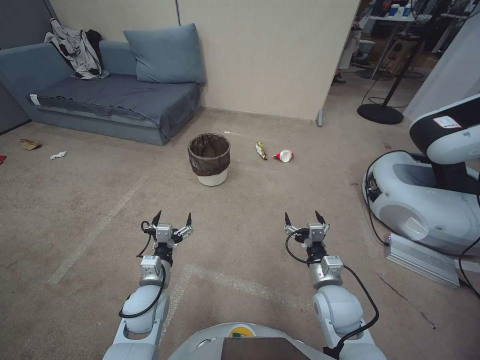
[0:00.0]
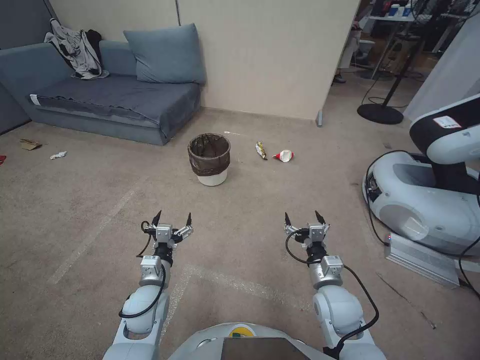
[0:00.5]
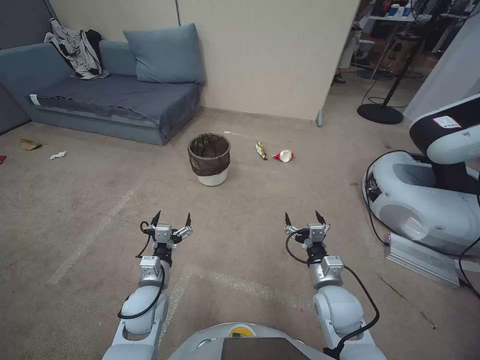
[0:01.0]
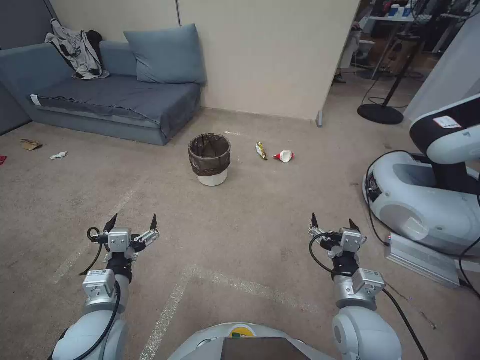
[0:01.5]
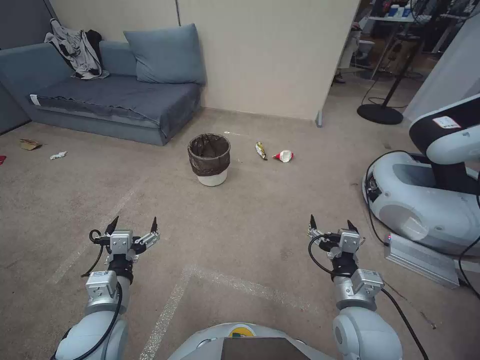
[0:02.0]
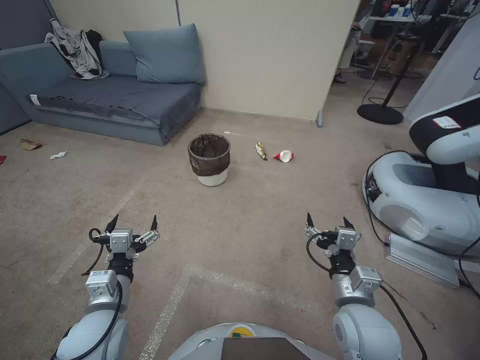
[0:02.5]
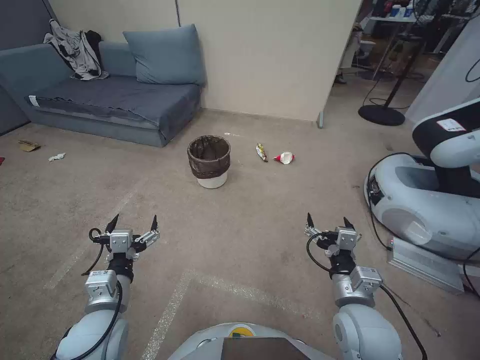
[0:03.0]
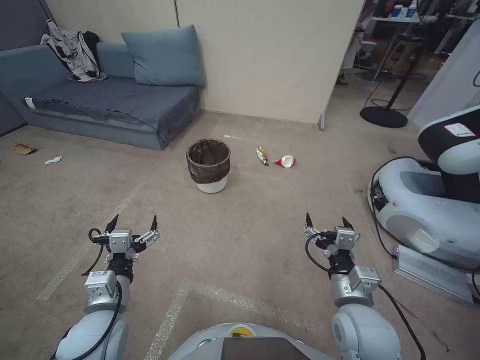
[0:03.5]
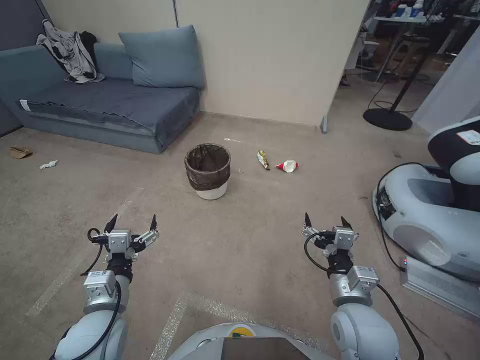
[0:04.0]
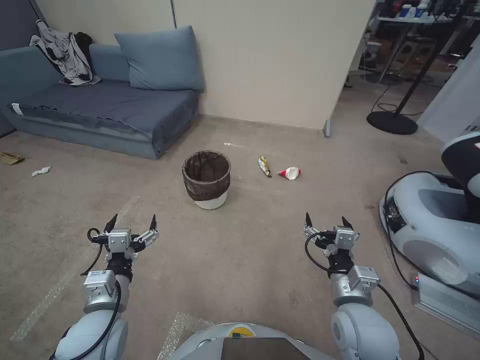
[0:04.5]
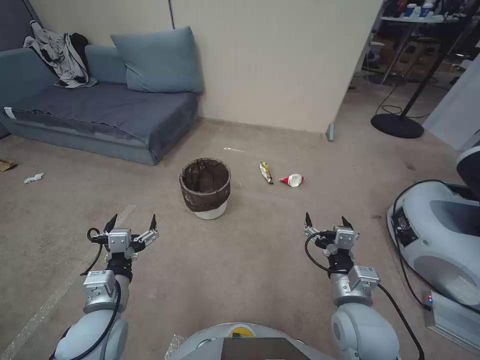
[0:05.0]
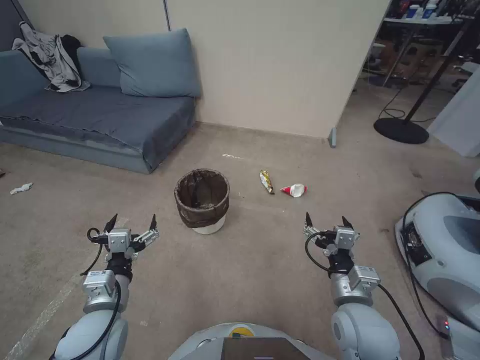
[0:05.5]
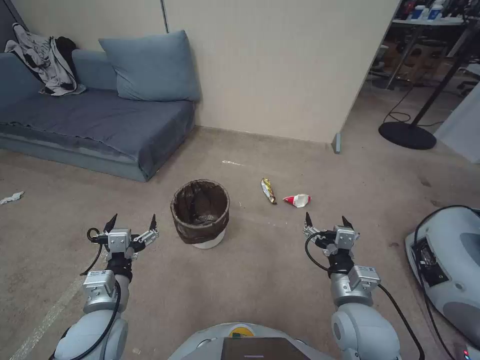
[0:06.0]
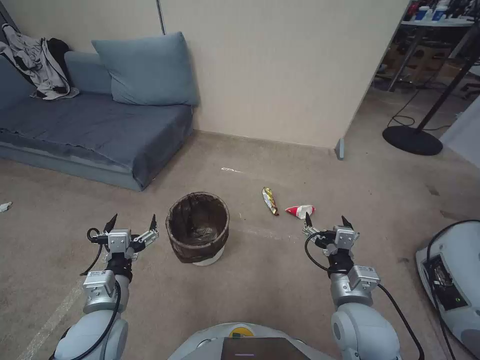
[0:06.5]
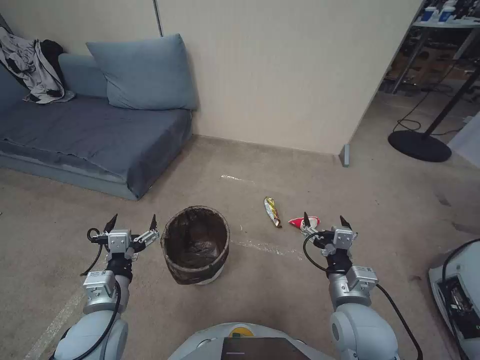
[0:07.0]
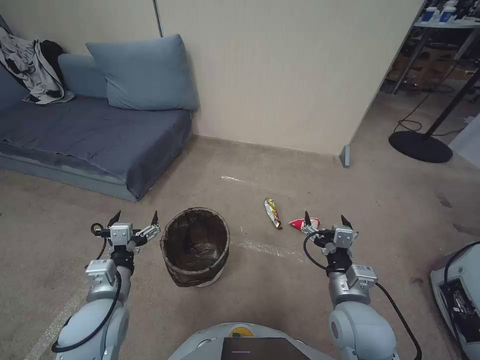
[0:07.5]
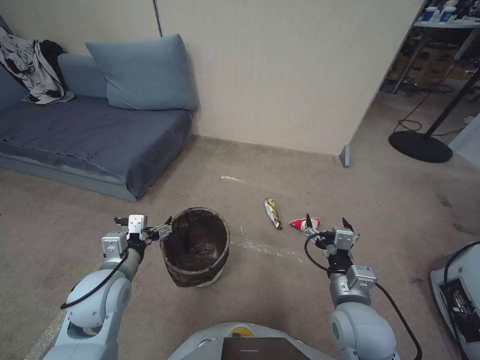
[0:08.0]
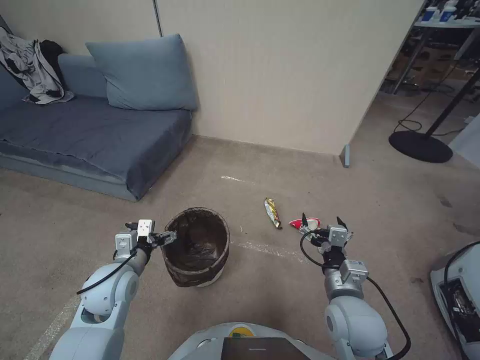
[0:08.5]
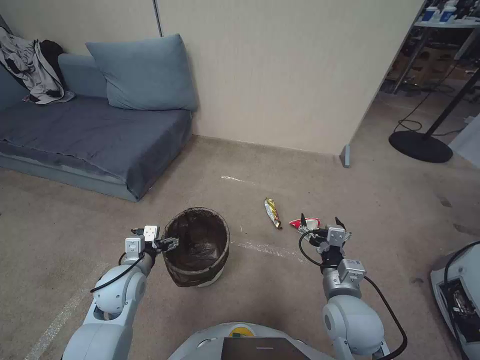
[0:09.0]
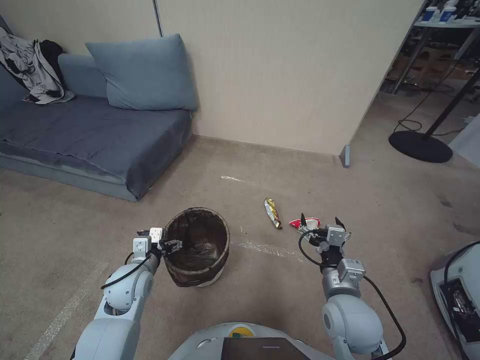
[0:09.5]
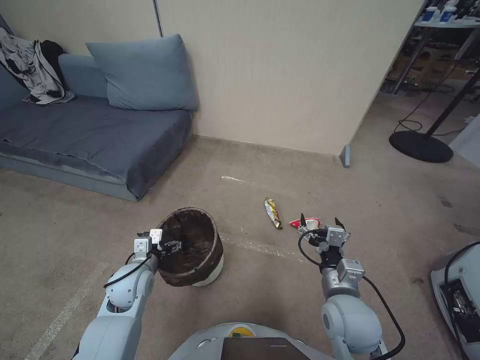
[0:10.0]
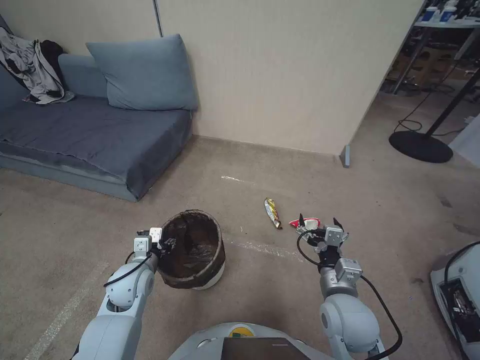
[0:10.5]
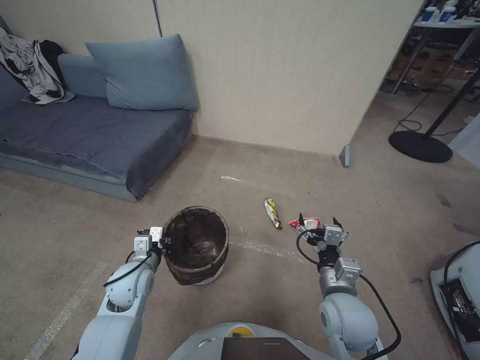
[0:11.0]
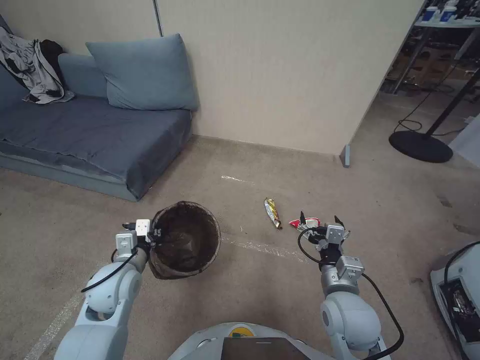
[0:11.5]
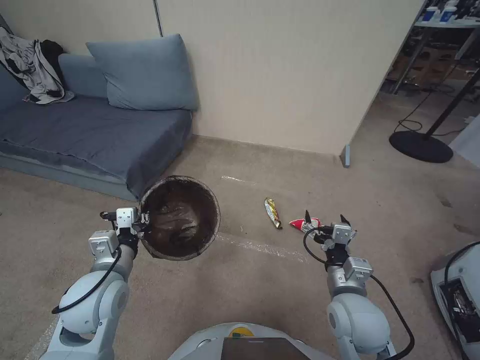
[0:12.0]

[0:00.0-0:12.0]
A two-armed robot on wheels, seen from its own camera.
Task of the whole recording: Pick up the trash bin, then pick up the garbage from the floor and place it into the trash bin.
0:02.0 to 0:04.0: Both grippers stay put.
0:06.0 to 0:08.0: The left gripper moves forward, about 5 cm.
0:08.0 to 0:10.0: The left gripper shifts some 10 cm downward and forward.
0:10.0 to 0:12.0: The left gripper is displaced upward and backward by some 10 cm, and closes.

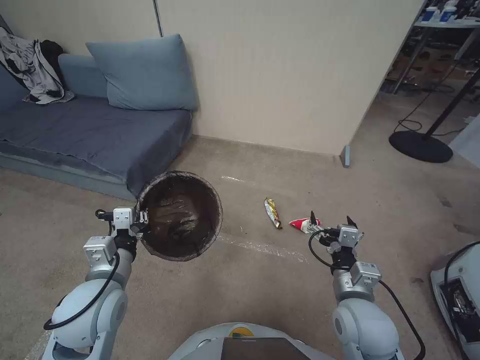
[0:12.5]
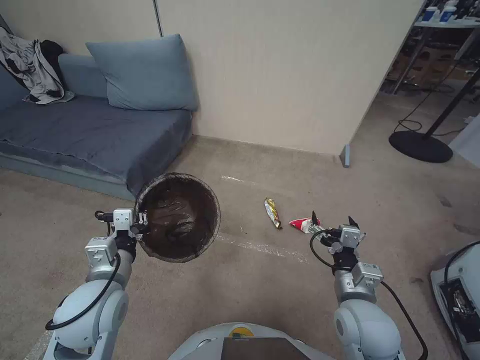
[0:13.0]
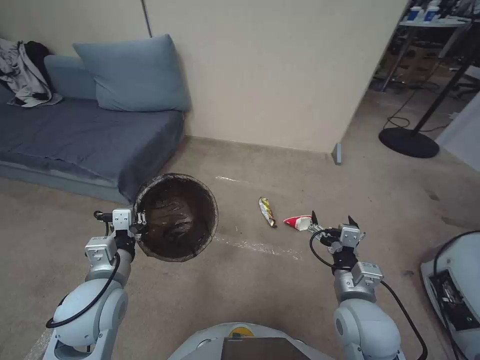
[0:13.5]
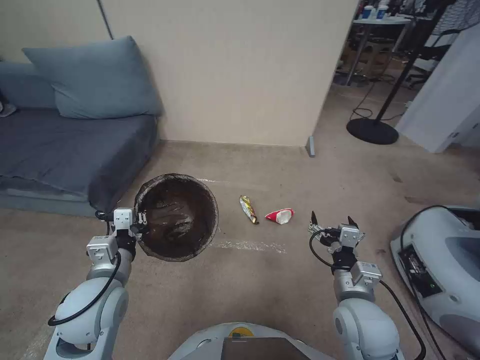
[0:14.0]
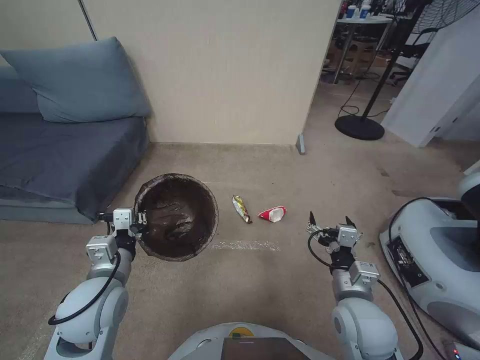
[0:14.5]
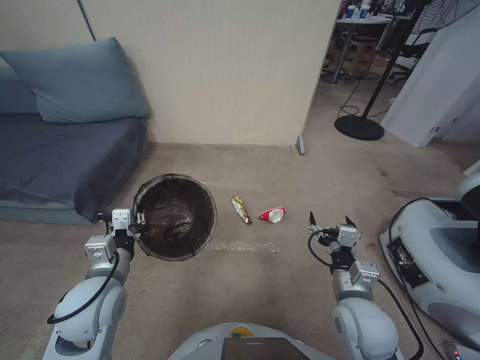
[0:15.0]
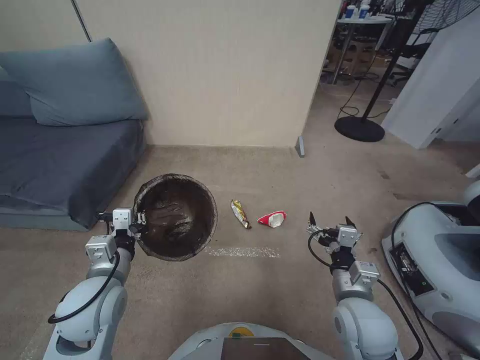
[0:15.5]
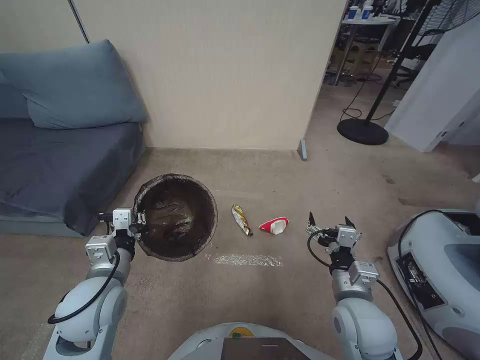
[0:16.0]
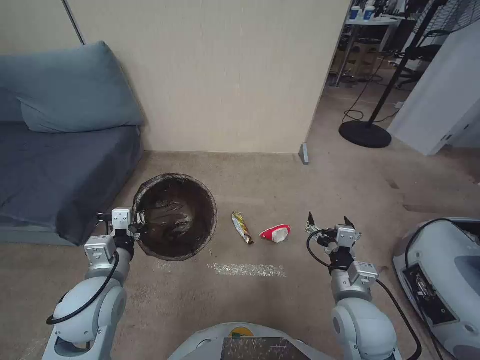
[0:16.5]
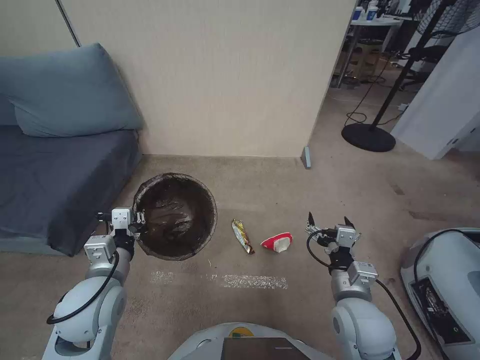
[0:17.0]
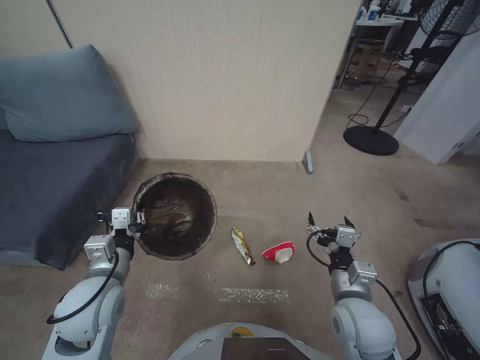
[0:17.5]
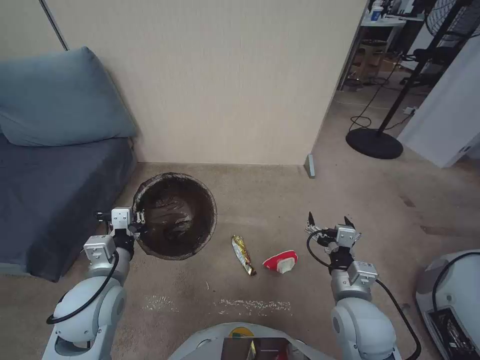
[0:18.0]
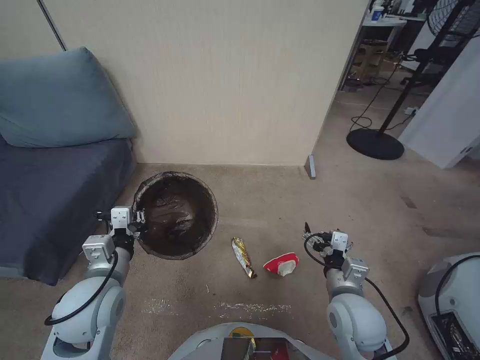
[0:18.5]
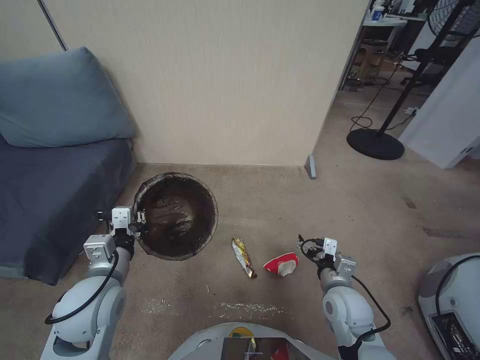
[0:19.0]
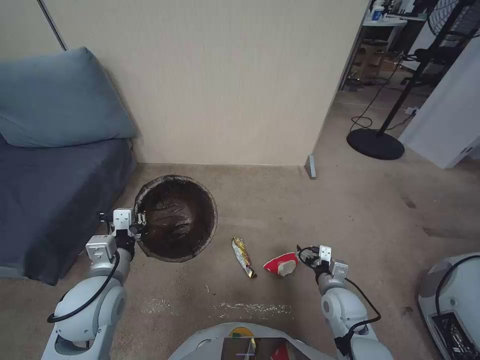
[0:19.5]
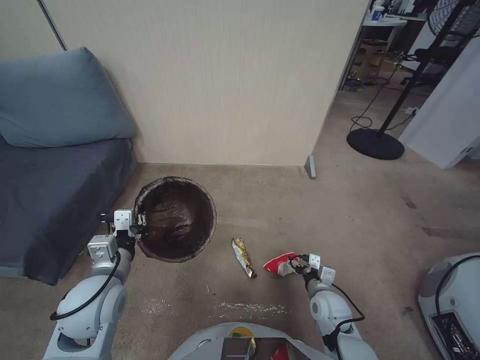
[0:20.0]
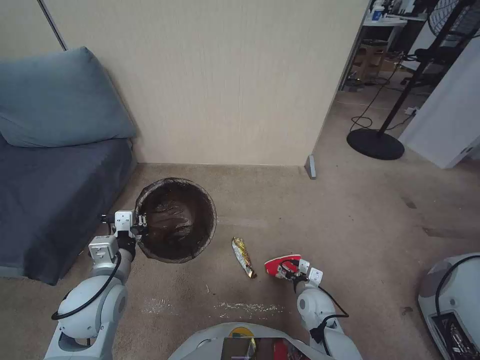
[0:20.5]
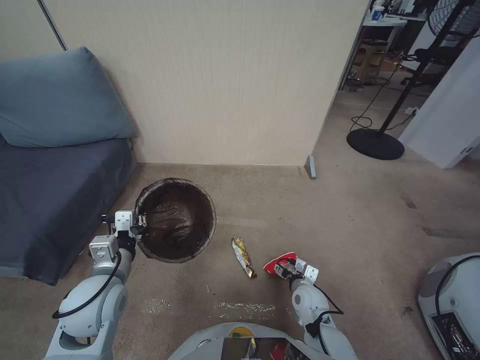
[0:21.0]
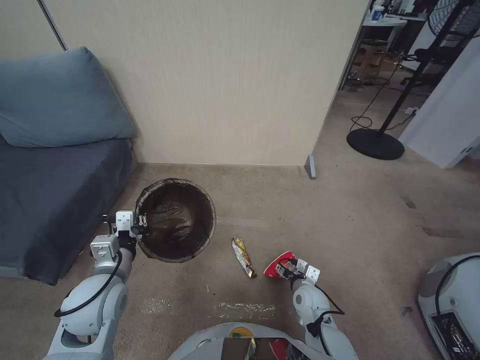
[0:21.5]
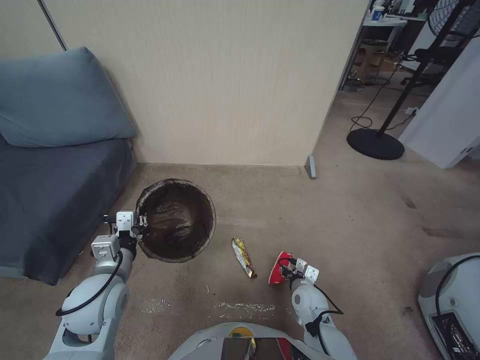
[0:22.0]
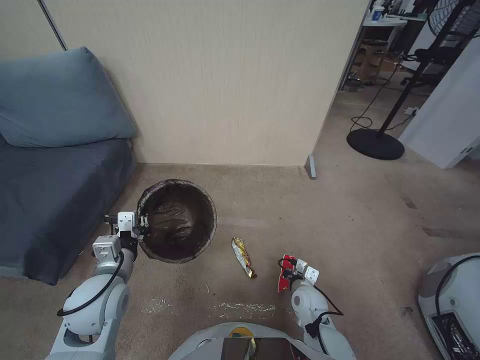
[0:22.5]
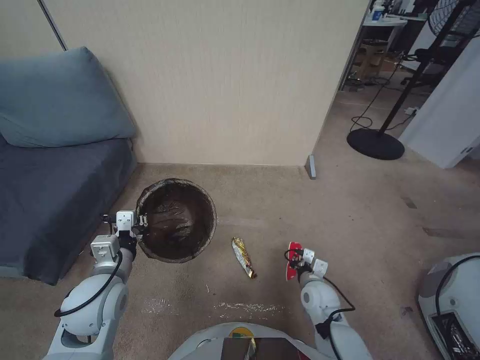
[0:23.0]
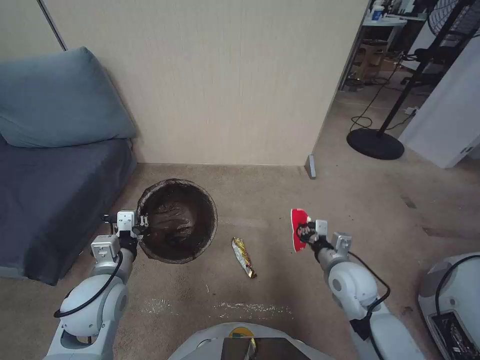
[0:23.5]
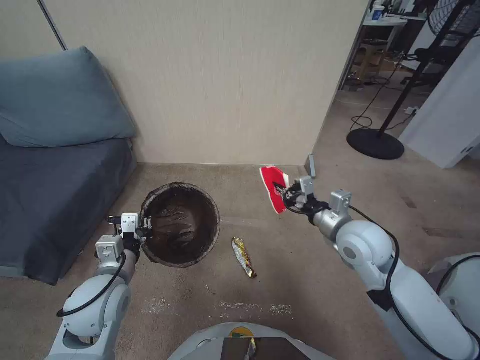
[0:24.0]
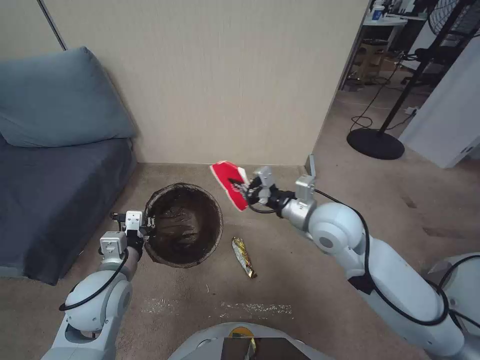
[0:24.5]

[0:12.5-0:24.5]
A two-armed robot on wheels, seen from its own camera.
Task of the whole recording: Pick up the trash bin, then pick up the garbage from the floor and place it into the trash bin.
0:14.5 to 0:16.5: Both grippers stay put.
0:18.5 to 0:20.5: The right gripper shifts some 20 cm downward.
0:20.5 to 0:22.5: The right gripper closes.
0:22.5 to 0:24.5: The right gripper heads upward, covering about 30 cm.

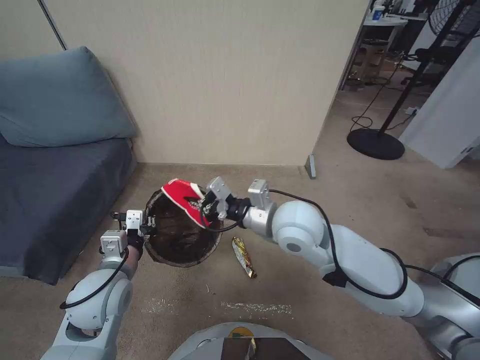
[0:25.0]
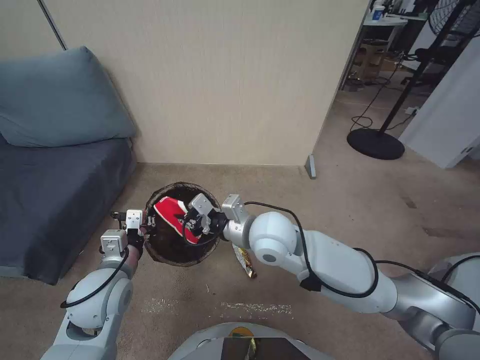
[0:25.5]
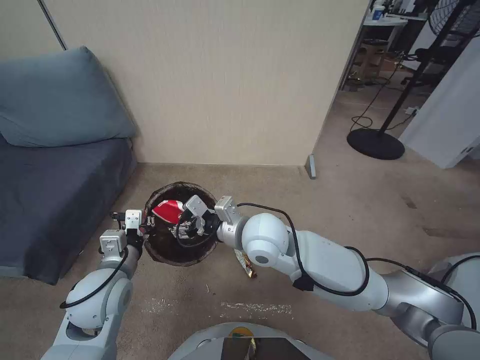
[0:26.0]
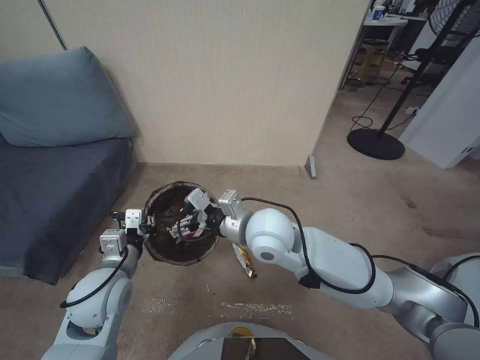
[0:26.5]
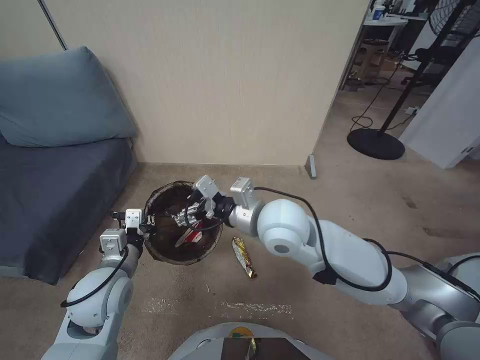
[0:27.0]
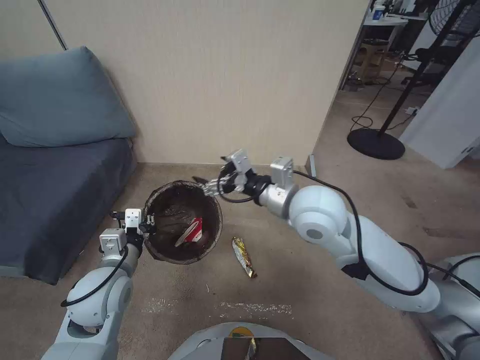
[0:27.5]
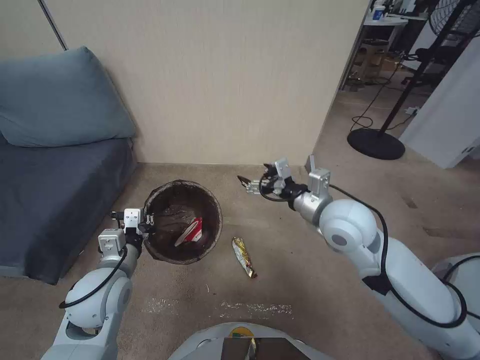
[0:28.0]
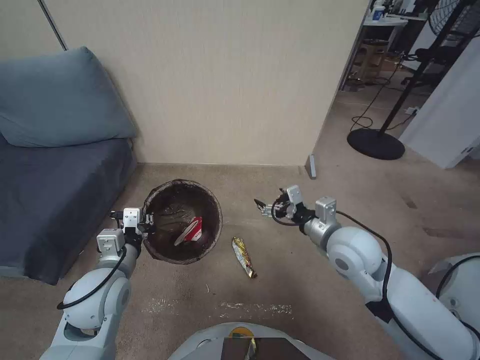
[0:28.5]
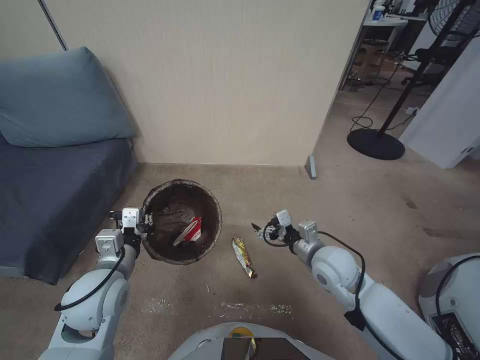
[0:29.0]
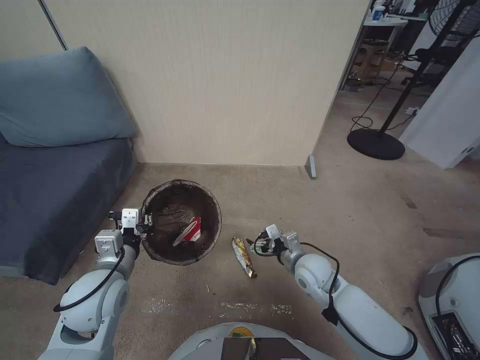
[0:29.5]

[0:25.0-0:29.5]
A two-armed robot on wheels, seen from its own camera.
Task of the whole recording: Pick up the trash bin, then pick up the garbage from the floor and place it into the trash bin.
0:25.0 to 0:27.0: The right gripper opens.
0:27.0 to 0:29.5: The right gripper moves downward and to the right, some 25 cm.
